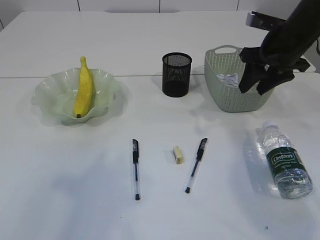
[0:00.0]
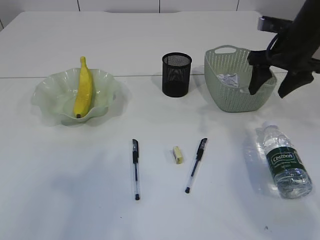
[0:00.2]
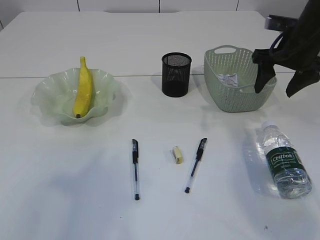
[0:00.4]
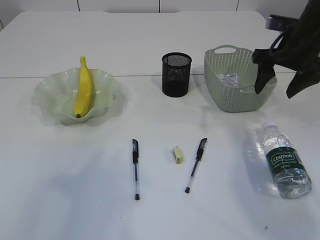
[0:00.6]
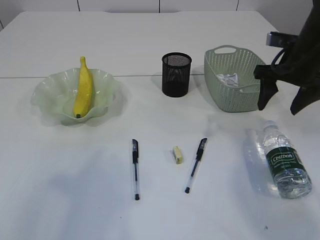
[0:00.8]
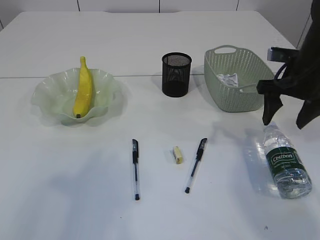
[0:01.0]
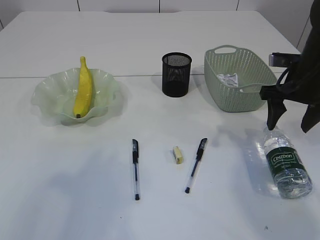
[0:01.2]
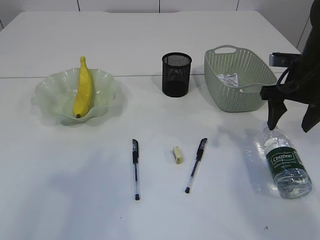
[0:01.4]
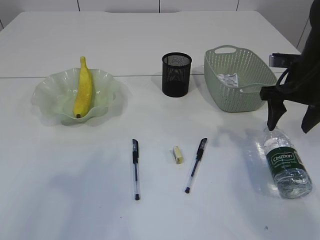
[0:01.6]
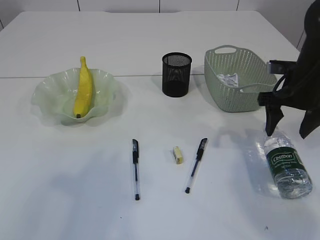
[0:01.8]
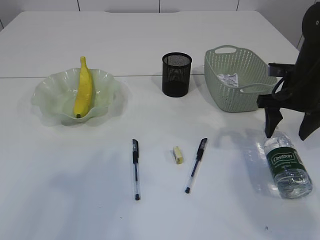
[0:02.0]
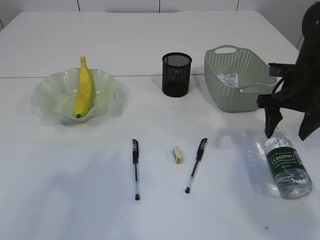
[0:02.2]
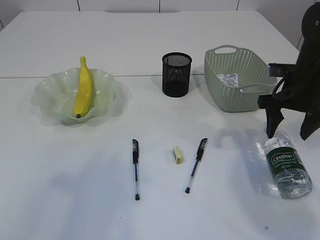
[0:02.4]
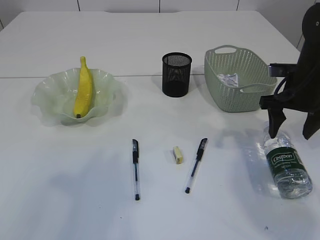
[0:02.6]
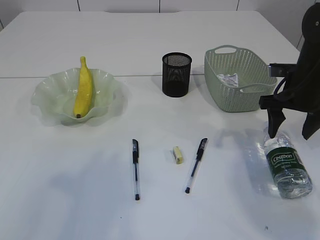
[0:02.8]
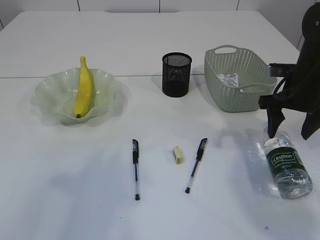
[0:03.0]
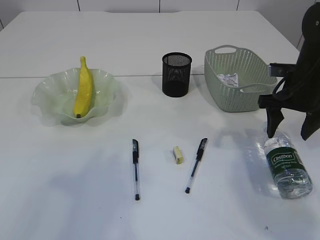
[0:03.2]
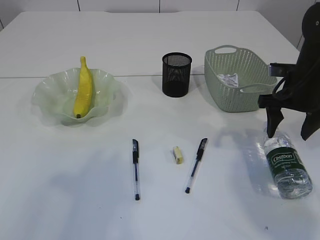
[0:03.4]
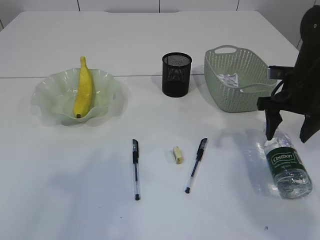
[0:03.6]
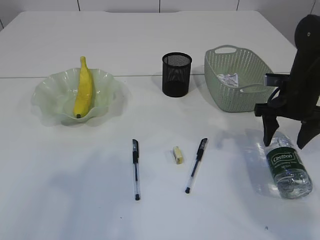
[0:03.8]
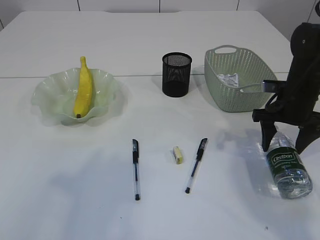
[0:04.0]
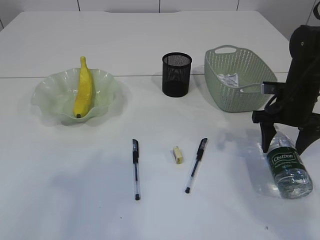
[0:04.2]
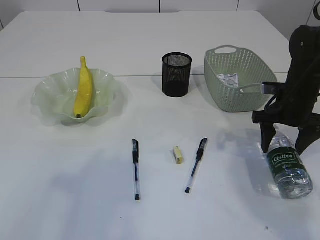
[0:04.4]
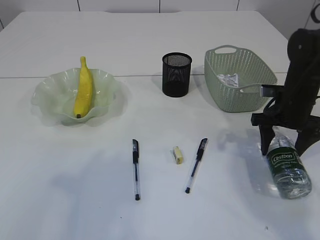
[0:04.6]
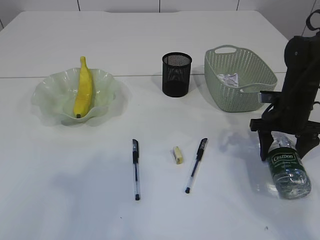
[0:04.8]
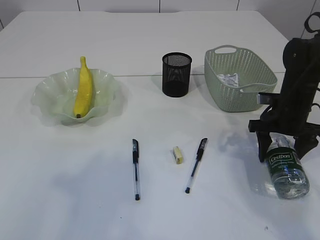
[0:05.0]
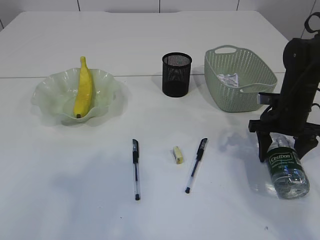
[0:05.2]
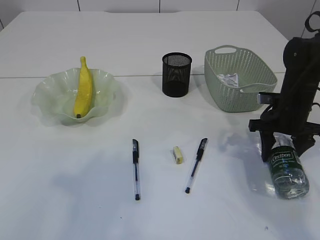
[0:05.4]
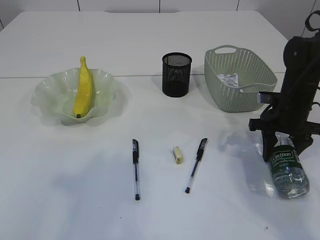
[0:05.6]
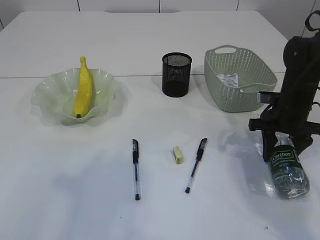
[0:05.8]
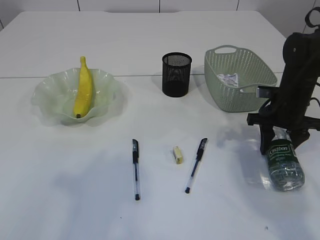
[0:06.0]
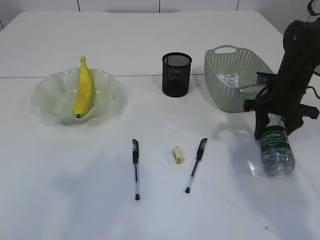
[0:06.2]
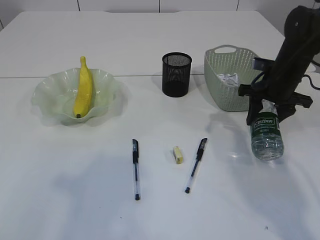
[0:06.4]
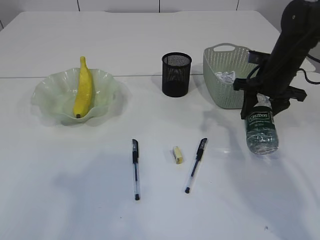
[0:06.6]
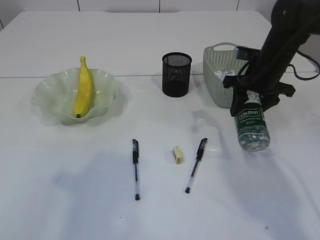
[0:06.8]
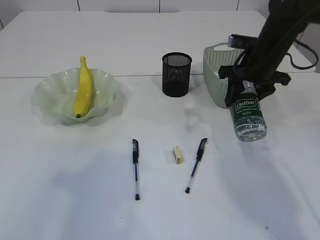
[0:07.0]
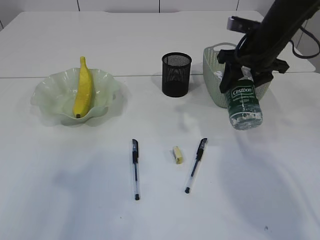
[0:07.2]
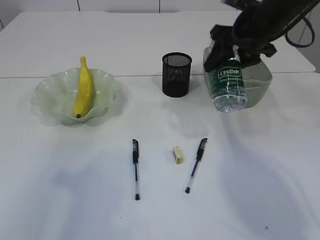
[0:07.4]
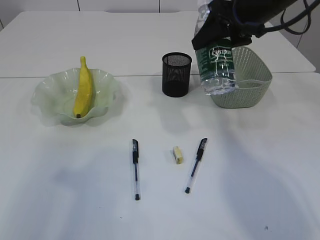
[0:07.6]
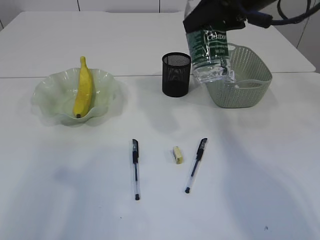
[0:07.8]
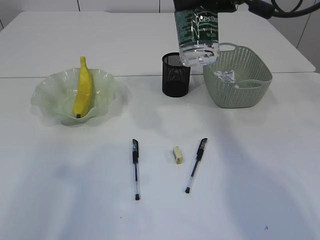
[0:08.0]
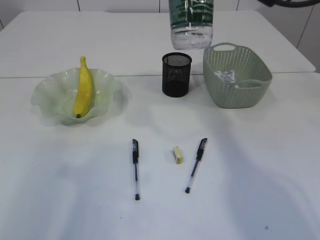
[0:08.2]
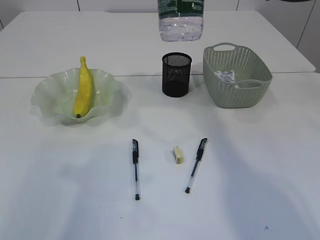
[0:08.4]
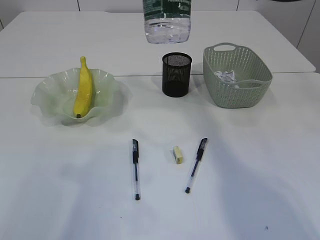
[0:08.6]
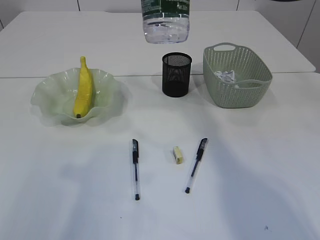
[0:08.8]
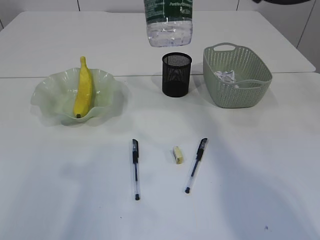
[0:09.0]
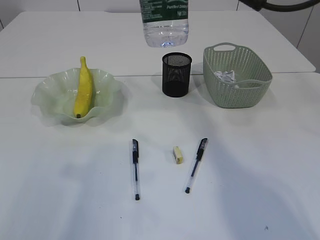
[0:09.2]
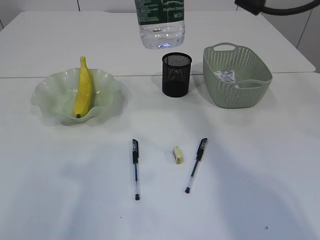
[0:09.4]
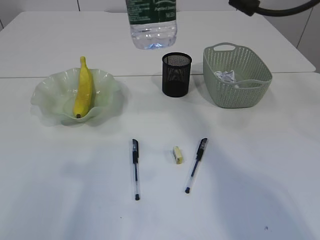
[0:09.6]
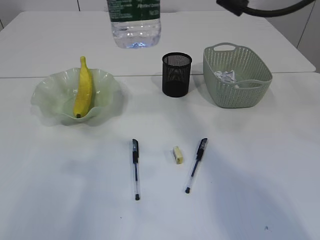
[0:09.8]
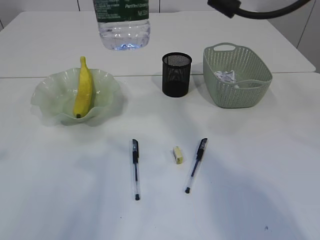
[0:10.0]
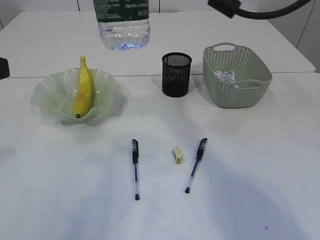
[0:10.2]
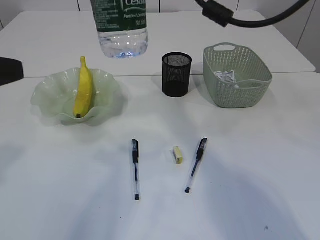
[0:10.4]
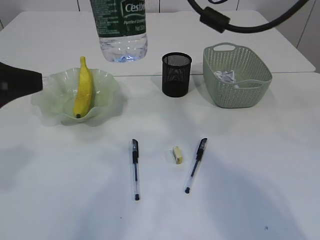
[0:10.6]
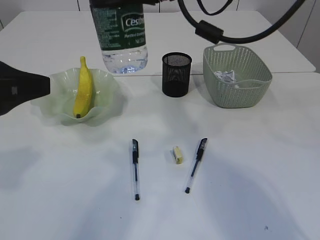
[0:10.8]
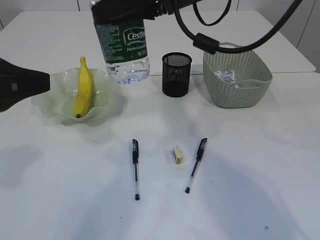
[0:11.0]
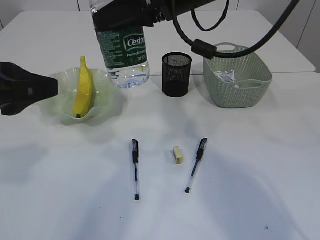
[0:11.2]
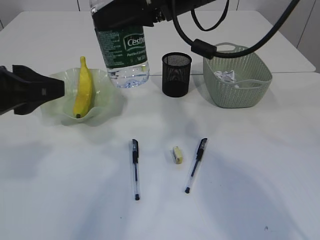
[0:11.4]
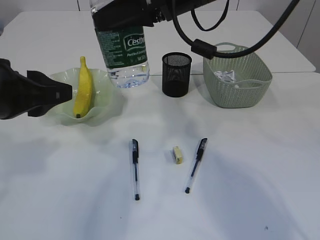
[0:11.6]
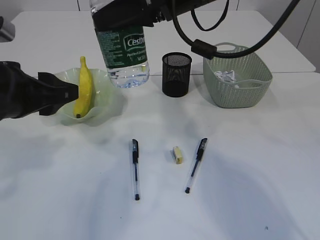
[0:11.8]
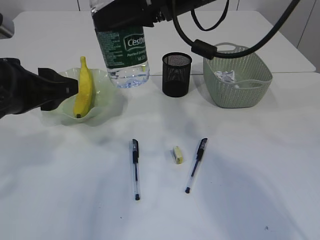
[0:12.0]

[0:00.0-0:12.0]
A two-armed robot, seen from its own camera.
Step, 0:00.0 to 0:06.8: Pick up the bottle with the right arm.
0:00.0 to 0:01.6: The right gripper shifts by approximately 5 cm.
0:01.6 to 0:04.4: The grippers stay close to where they were, moving slightly.
0:04.4 to 0:06.0: The grippers move only a little.
0:06.0 to 0:07.6: The right gripper shifts approximately 20 cm upward and to the left.
0:07.6 to 0:09.0: The right gripper heads upward, to the left and backward, covering approximately 10 cm.
0:09.0 to 0:10.4: The right gripper travels to the left by some 5 cm. The left gripper shifts by approximately 5 cm.
0:10.4 to 0:12.0: The right gripper shifts about 5 cm downward; the left gripper moves forward and downward, some 10 cm.

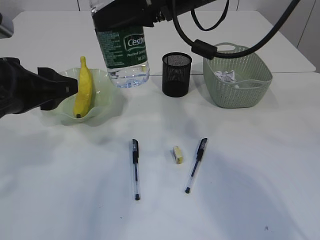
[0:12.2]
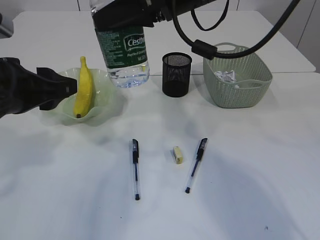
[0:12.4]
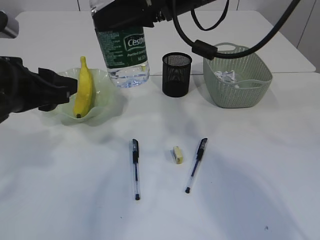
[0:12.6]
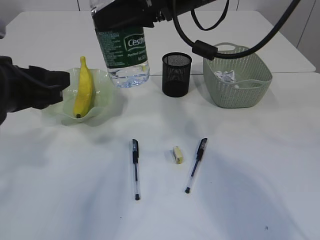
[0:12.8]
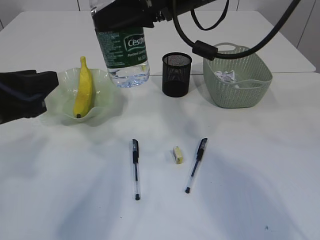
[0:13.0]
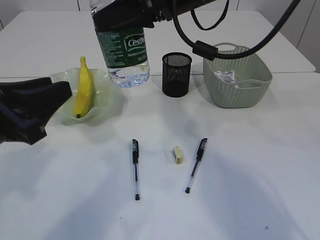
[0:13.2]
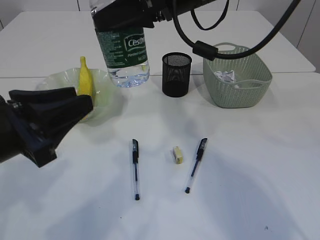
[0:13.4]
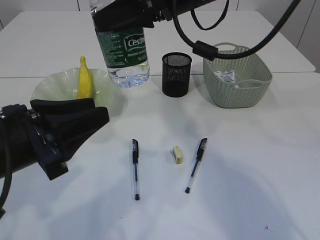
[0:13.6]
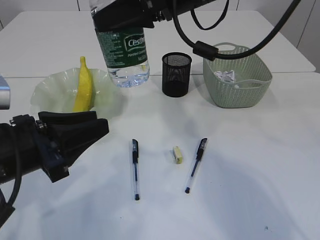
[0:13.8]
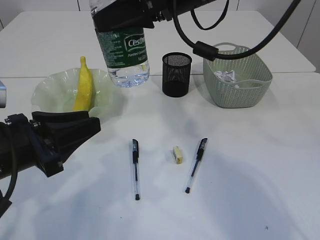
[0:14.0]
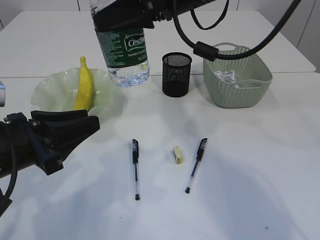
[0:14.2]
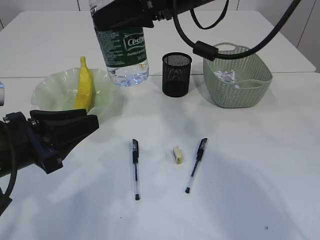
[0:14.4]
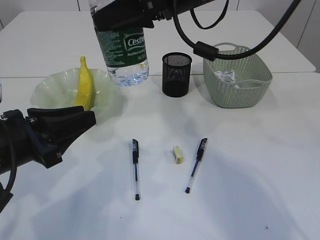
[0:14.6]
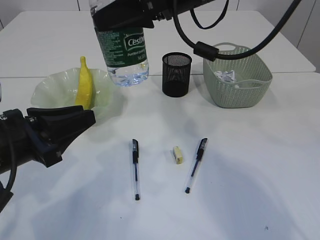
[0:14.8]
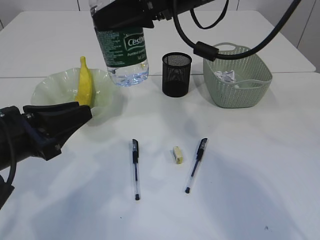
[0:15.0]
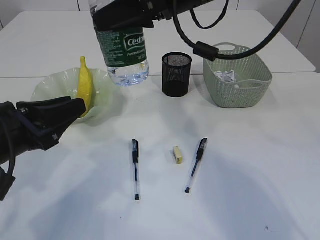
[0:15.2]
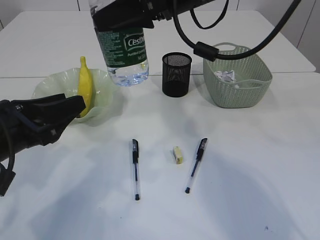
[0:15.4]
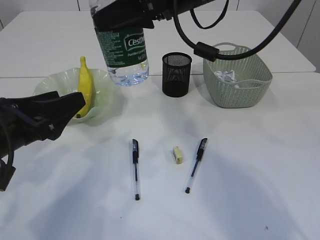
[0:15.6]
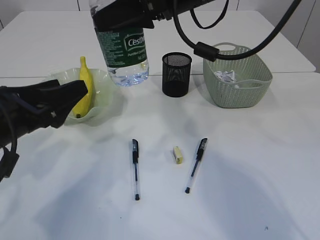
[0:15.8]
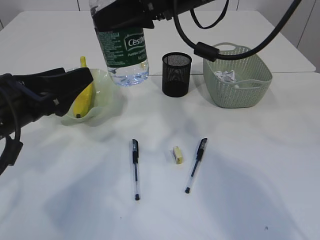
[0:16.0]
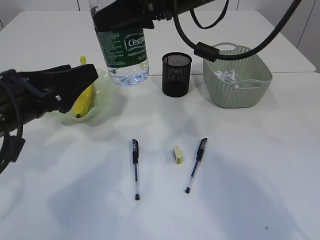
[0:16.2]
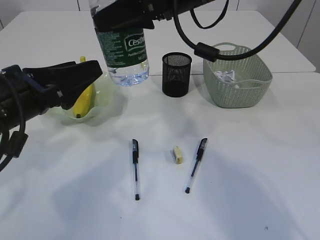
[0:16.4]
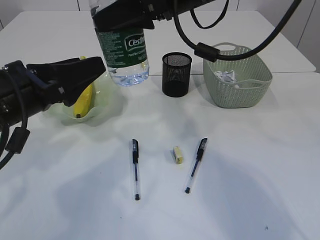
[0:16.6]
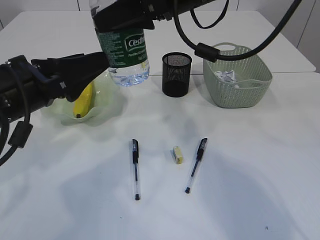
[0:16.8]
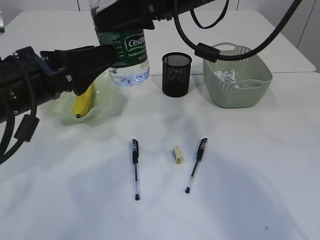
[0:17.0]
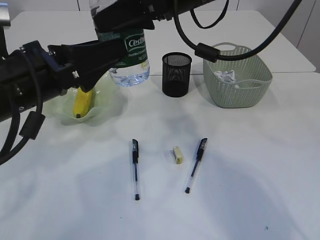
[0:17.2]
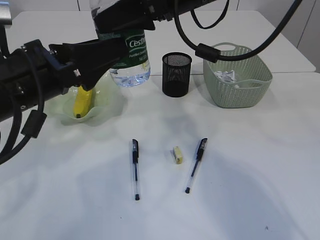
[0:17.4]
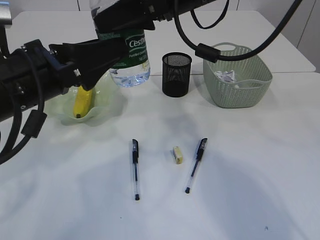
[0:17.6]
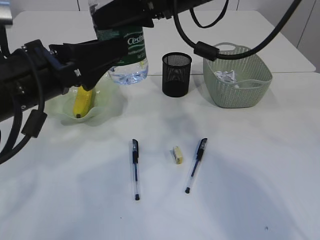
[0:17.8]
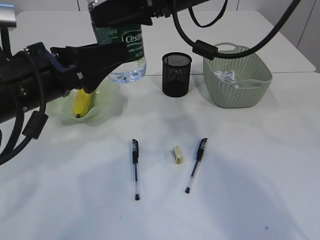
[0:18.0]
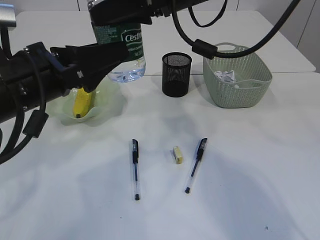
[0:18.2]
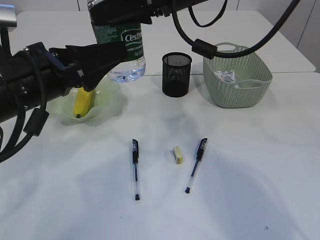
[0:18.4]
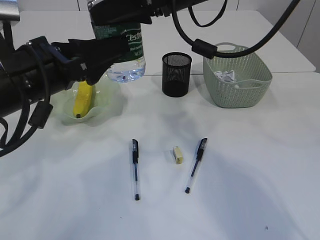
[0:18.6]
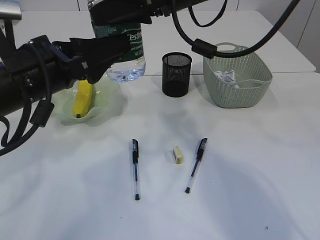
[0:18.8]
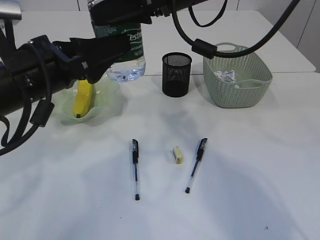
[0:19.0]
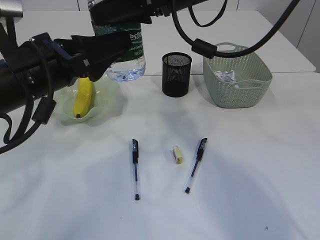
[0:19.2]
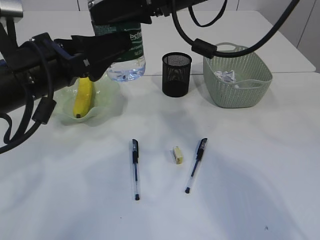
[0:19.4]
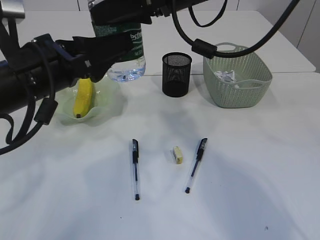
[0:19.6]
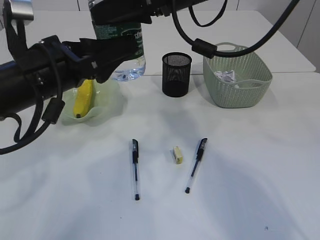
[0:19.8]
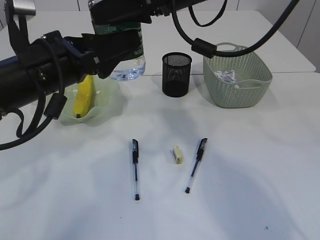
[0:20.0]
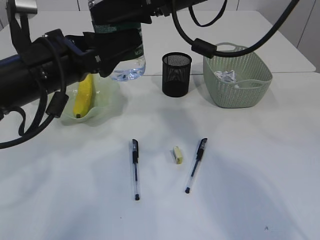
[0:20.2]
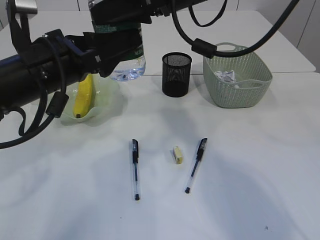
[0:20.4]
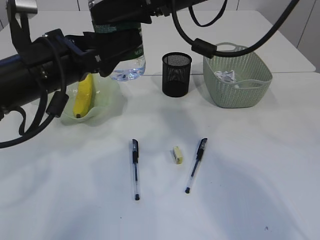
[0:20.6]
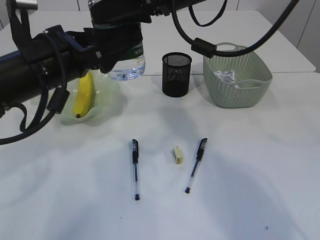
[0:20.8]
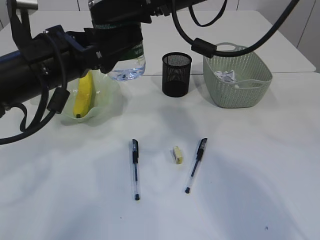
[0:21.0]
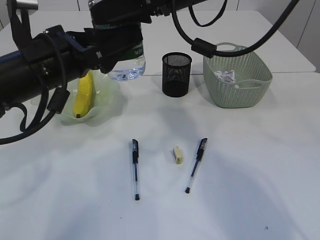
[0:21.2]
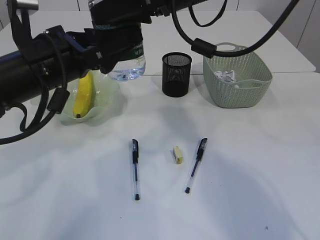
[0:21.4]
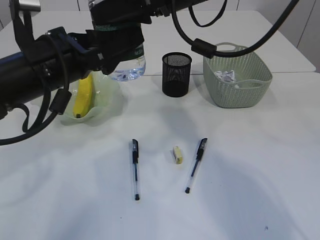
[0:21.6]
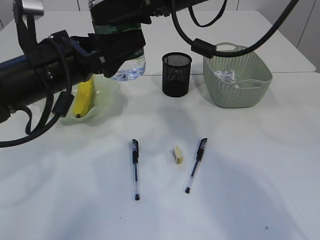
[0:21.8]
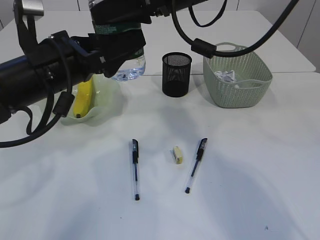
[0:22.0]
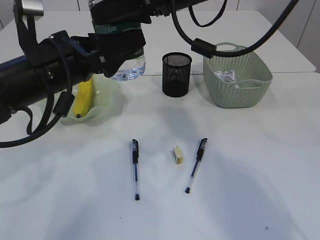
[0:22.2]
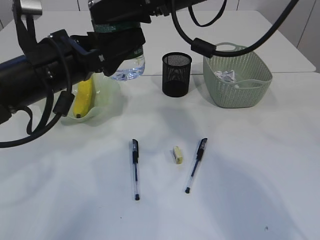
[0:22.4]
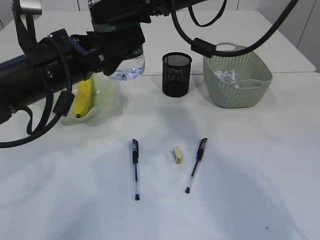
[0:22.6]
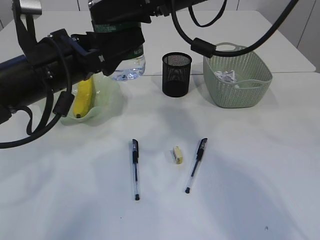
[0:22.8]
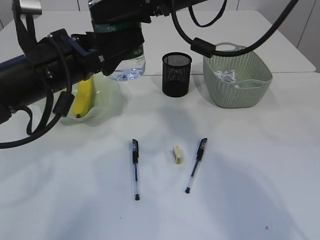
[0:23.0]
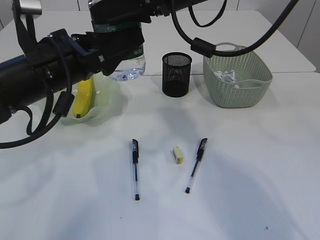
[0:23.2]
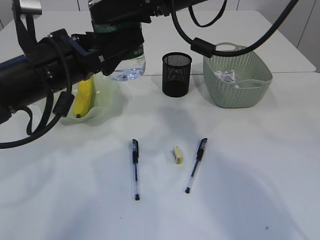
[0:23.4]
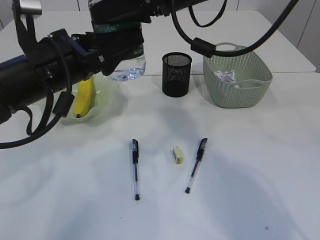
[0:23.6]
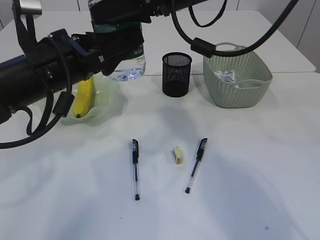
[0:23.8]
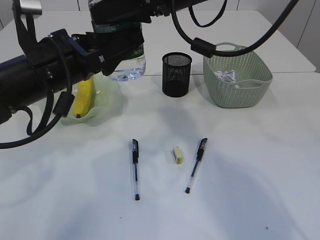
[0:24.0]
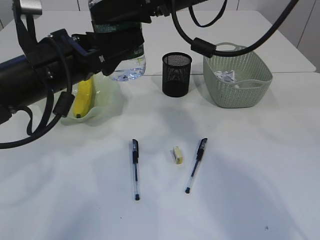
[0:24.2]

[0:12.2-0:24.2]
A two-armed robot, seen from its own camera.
0:12.2 to 0:13.8: The left gripper heads downward, covering roughly 5 cm.
0:13.8 to 0:15.2: The grippers make only small movements.
0:15.2 to 0:16.6: The left gripper changes place by some 5 cm, and opens.
0:16.6 to 0:19.8: The grippers move only a little.
0:19.8 to 0:21.2: Both grippers stay put.
0:21.2 to 0:24.2: Both grippers stay about where they are.
